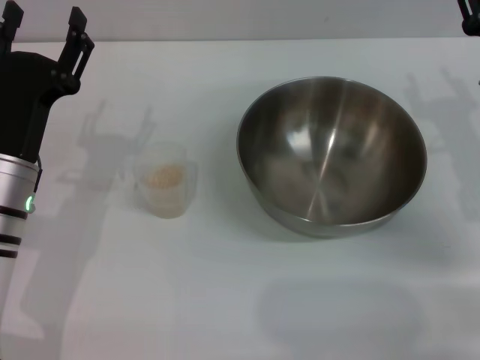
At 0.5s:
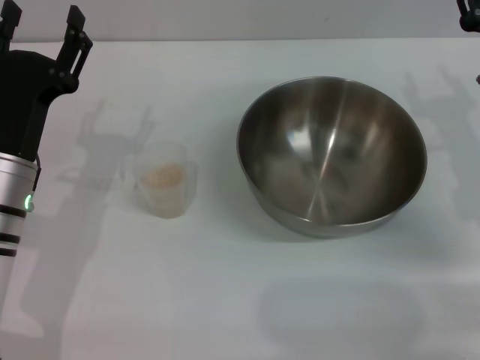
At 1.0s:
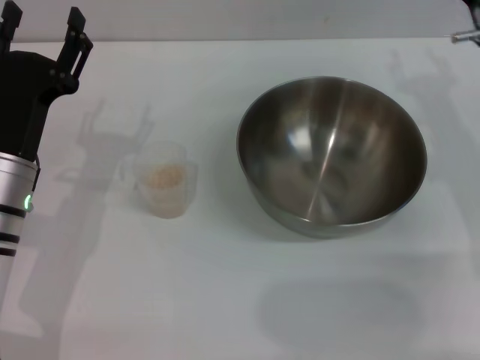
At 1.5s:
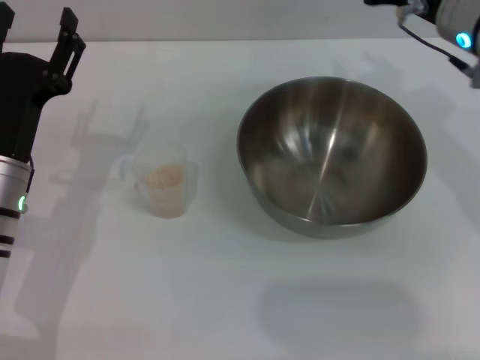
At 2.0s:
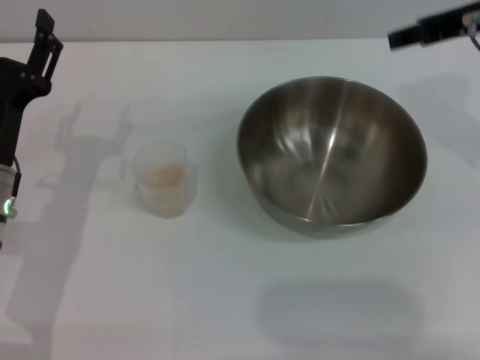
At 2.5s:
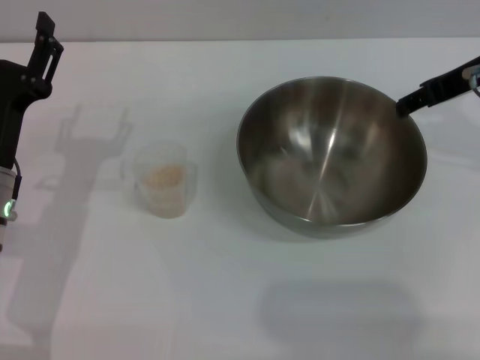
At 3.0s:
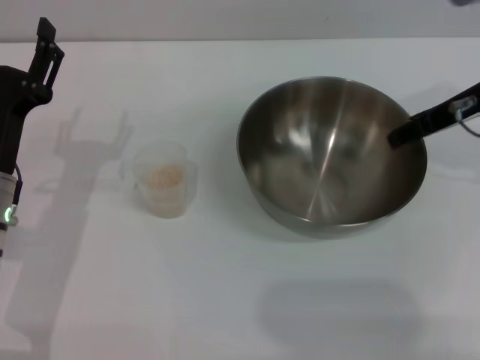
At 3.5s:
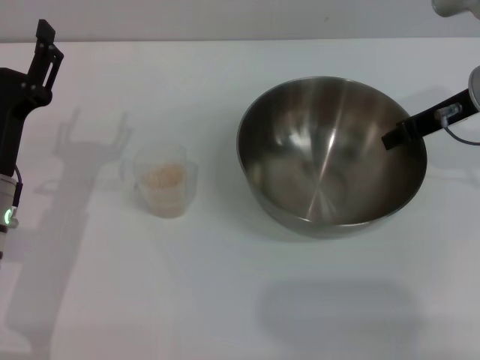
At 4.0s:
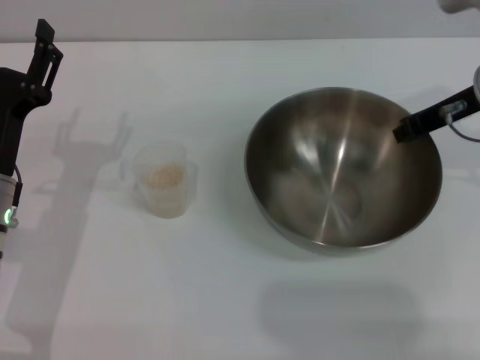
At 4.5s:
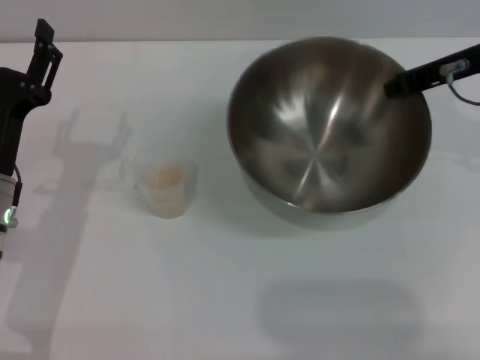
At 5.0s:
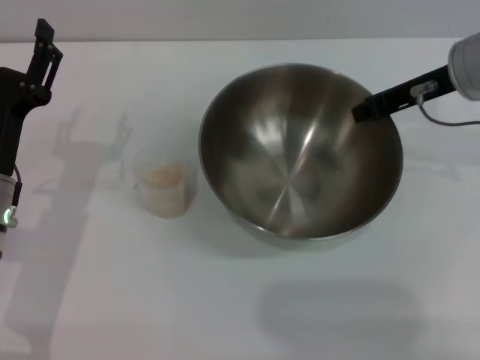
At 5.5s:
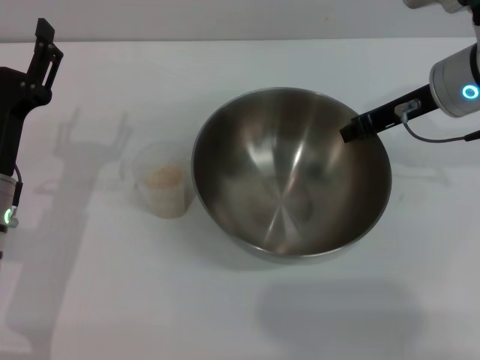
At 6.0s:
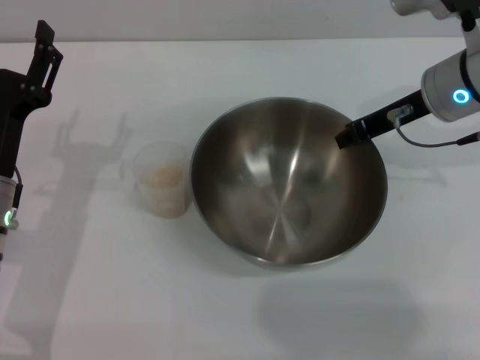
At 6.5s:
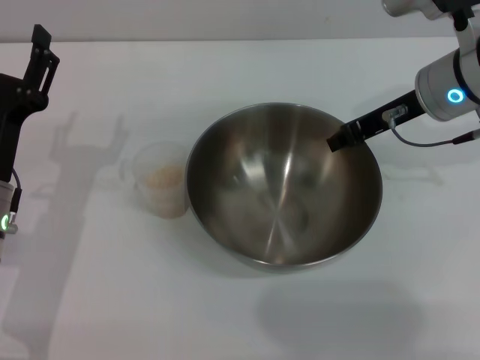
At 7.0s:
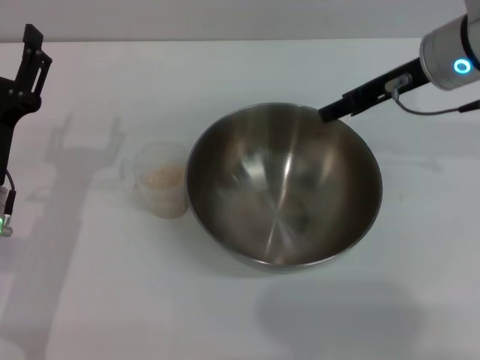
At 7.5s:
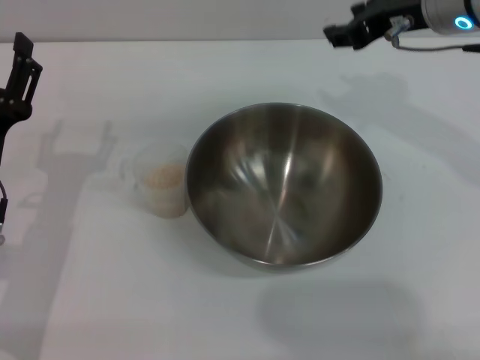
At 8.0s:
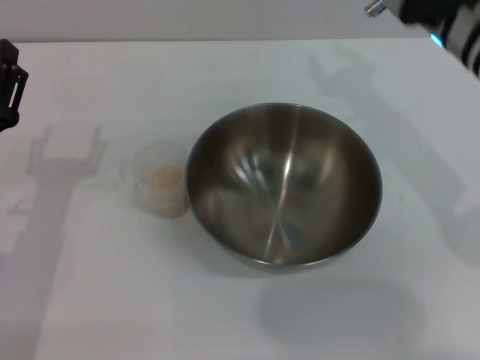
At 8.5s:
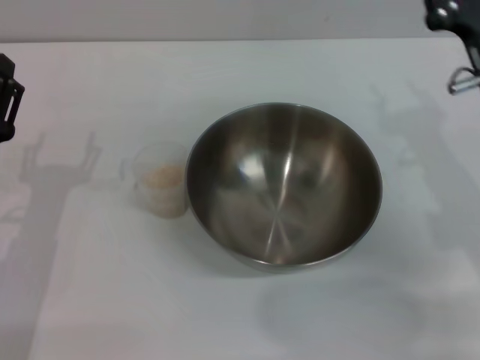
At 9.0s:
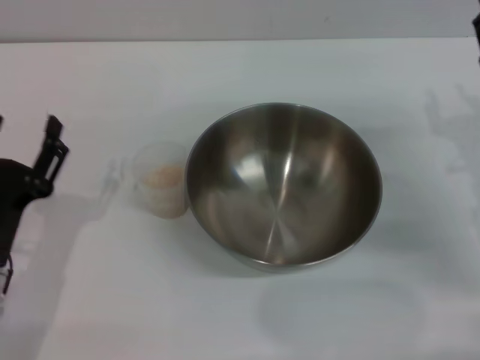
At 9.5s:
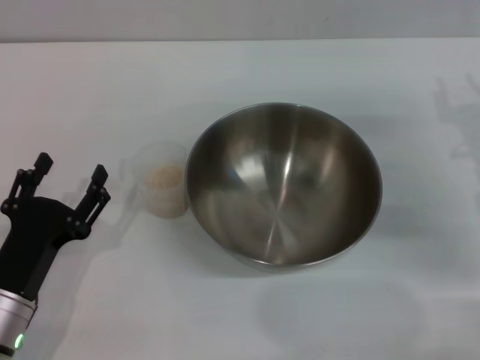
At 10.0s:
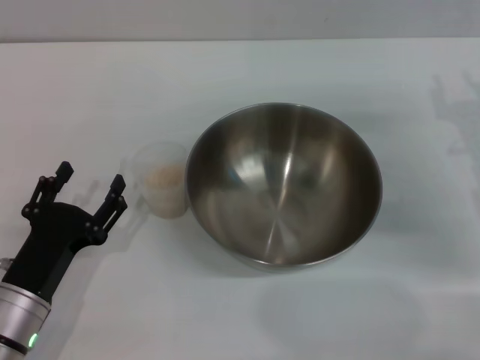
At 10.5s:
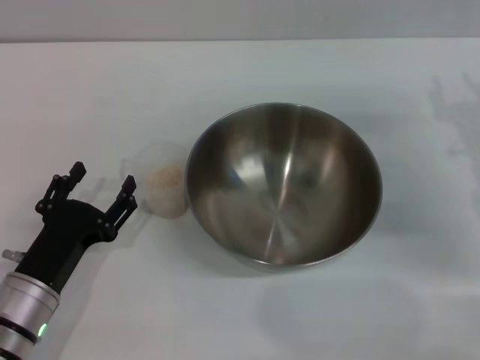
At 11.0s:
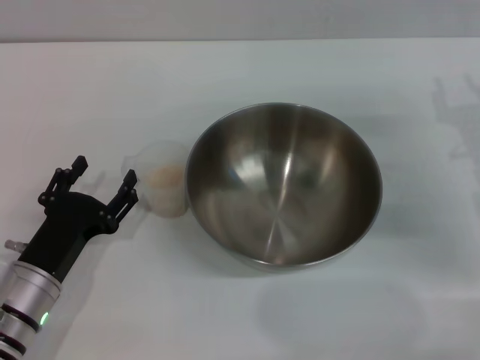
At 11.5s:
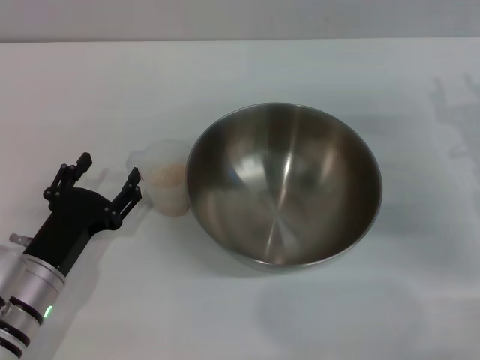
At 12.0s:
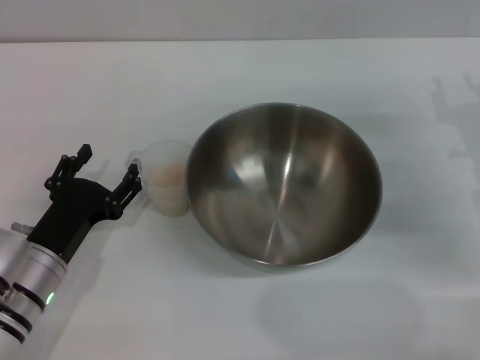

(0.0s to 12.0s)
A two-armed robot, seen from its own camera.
Task of the whole recording: Place the bowl in the middle of the table with one hand and pour the rice from the grain cup into it with the other hand.
Step, 0.0s - 4.0s: Pick up the bowl with the right gripper.
Step, 5.0s - 7.0s: Place the bowl in the center of view with the right gripper.
0.0s - 2.0s: The right gripper goes roughly 15 cm upward.
2.0s - 4.0s: The right gripper shifts about 10 cm downward, and closes.
6.0s - 8.0s: The right gripper travels upward by approximately 5 cm, and opens its fingers.
8.0s - 10.0s: The right gripper goes some 20 cm to the right and downward. The left gripper moves backward and downward, about 10 cm.
10.0s - 12.0s: The grippers make only small movements.

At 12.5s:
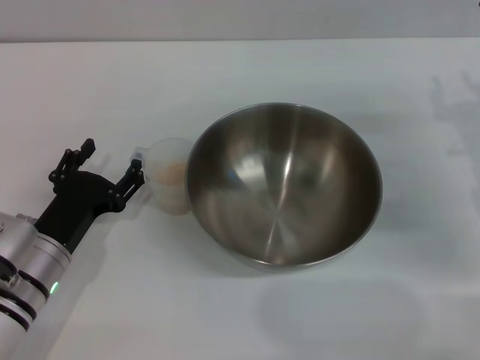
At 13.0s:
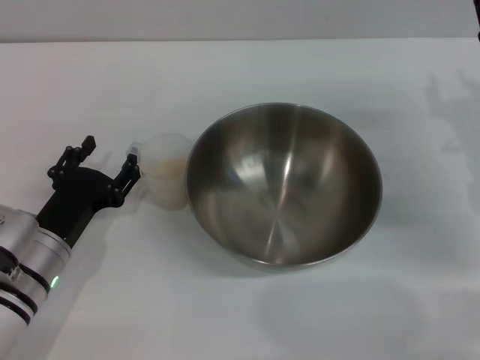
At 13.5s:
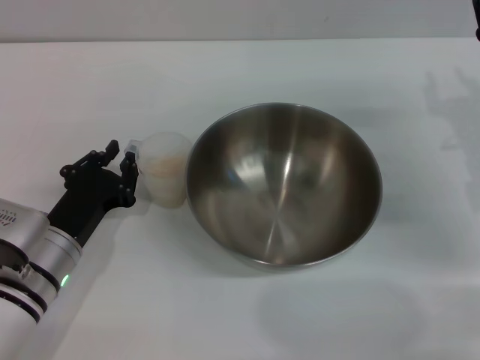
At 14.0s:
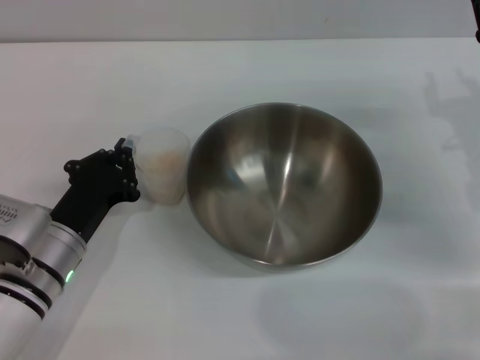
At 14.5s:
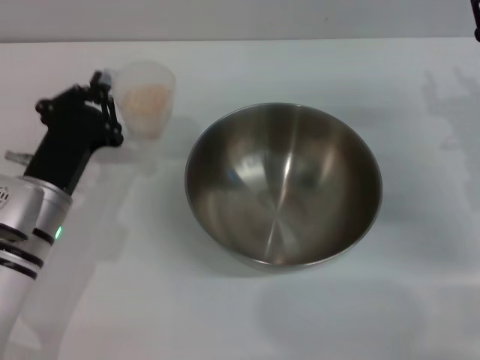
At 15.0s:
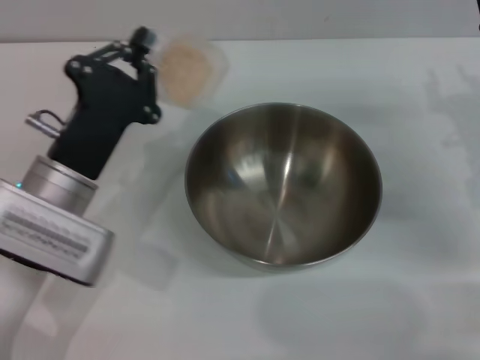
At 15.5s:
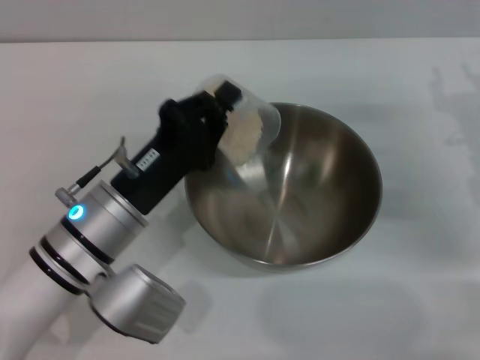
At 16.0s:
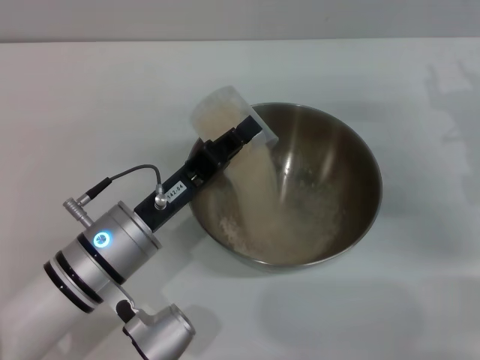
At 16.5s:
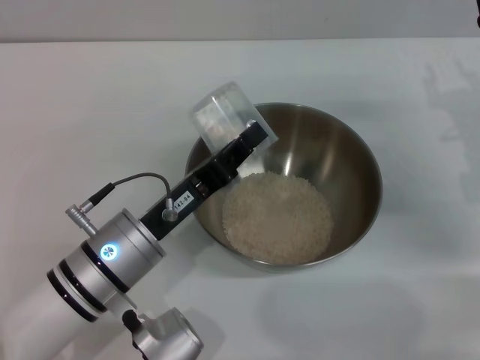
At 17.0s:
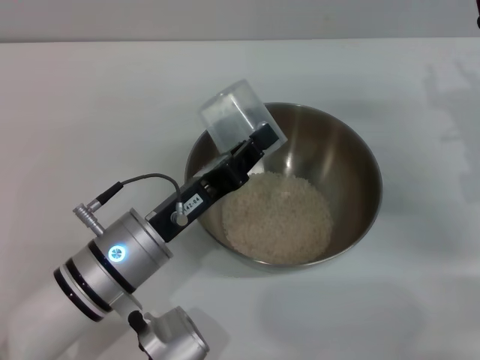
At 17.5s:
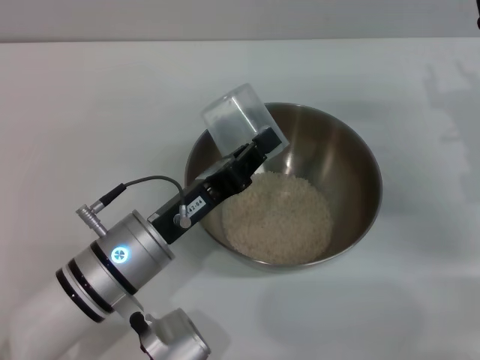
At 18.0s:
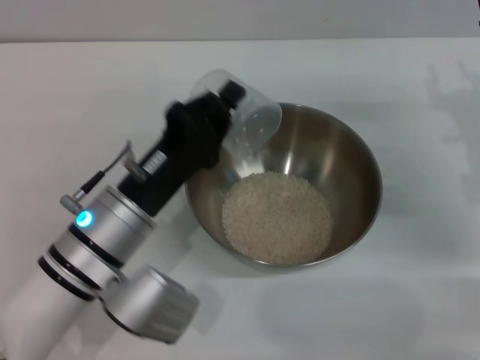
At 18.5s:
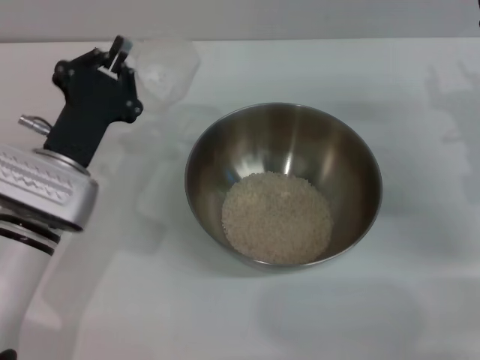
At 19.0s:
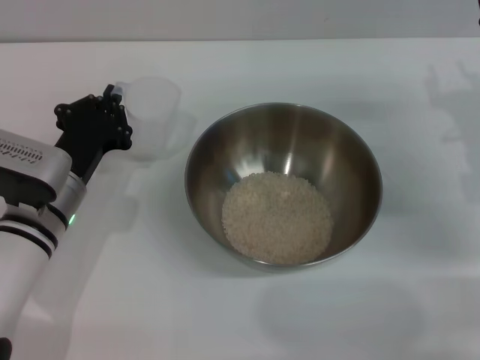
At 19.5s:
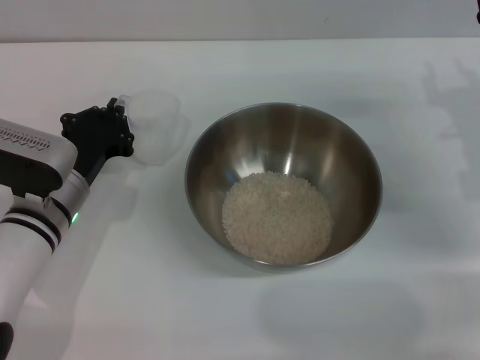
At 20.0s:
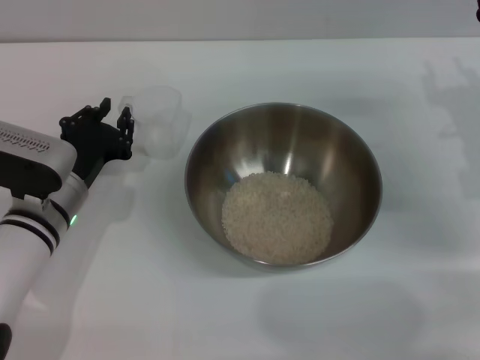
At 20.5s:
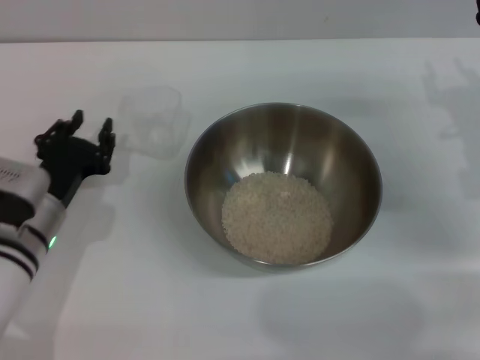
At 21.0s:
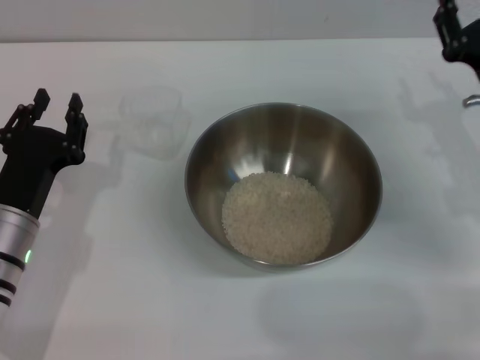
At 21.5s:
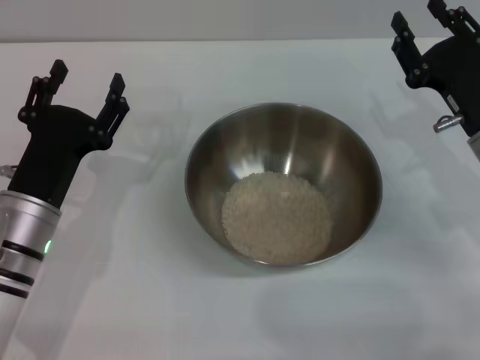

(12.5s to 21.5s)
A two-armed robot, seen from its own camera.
Task of the whole recording: Place the bowl in the middle of the table with one hand and pour the rice from the grain cup into it with the other hand.
Step, 12.5s - 14.5s: Pick up the cup with rice in it with the left gripper.
Step, 15.0s - 17.5s: Pour the rice from the cup into the bowl with the left gripper.
Step, 18.0s - 20.0s: Place the cup on the table with the left gripper.
12.5s - 14.5s: The left gripper changes place by some 5 cm, and closes its fingers.
14.5s - 17.0s: The left gripper is displaced to the right by some 10 cm.
17.0s - 19.5s: The left gripper travels to the left and forward by some 10 cm.
19.5s - 21.5s: The left gripper shifts roughly 5 cm backward, and opens its fingers.

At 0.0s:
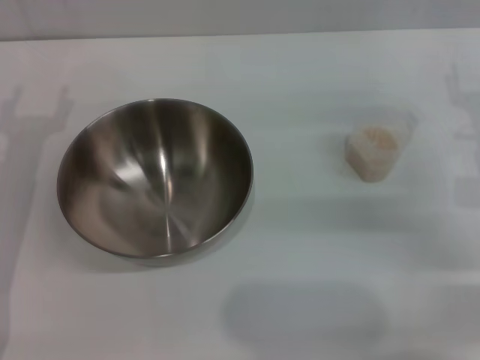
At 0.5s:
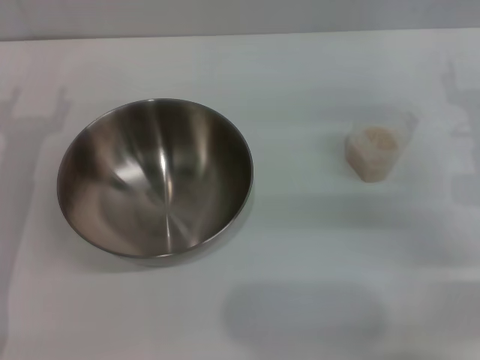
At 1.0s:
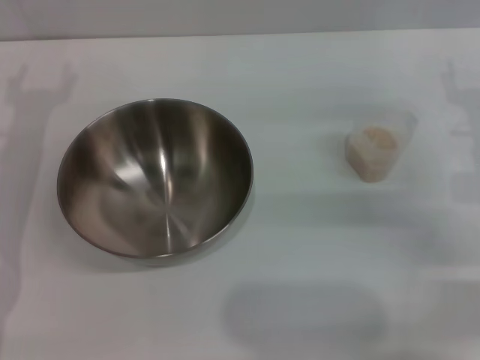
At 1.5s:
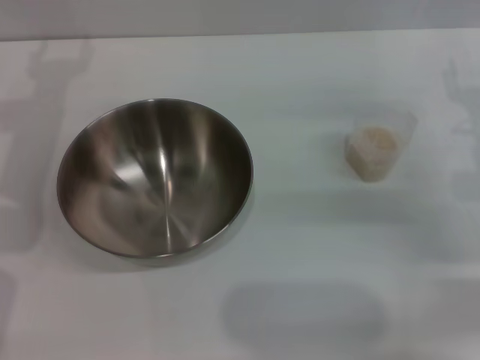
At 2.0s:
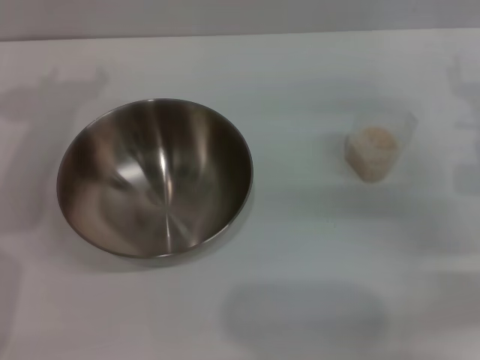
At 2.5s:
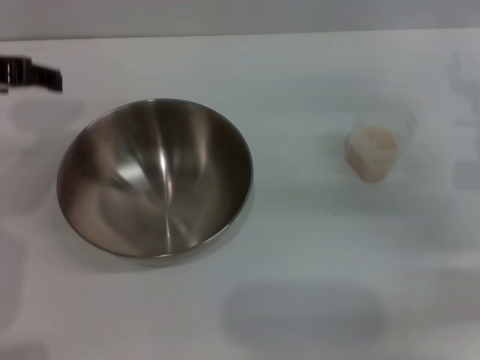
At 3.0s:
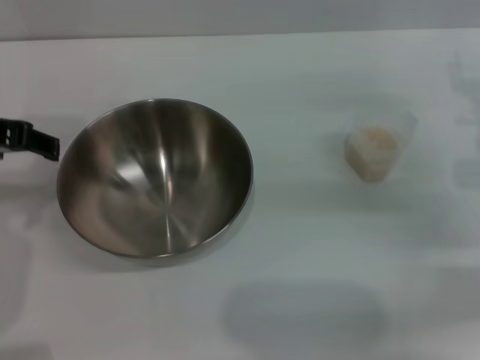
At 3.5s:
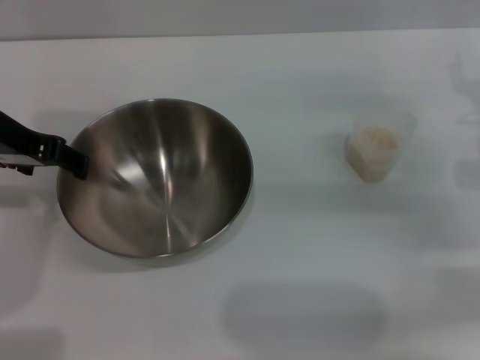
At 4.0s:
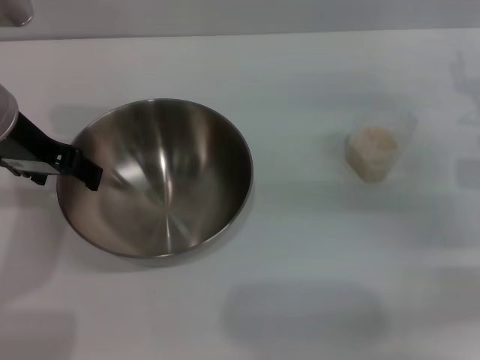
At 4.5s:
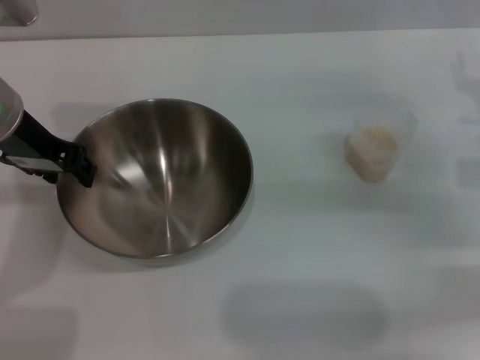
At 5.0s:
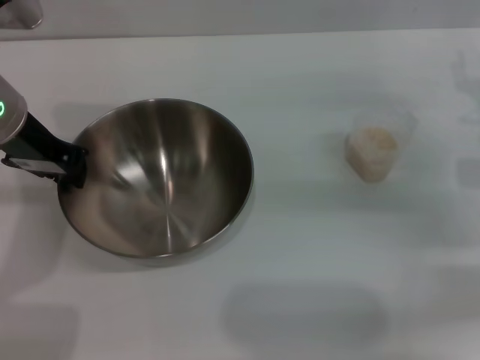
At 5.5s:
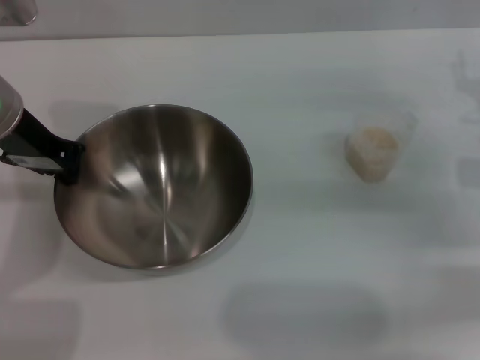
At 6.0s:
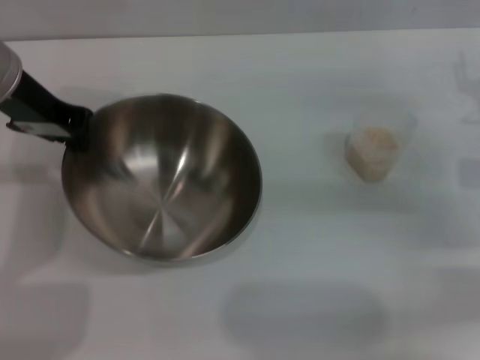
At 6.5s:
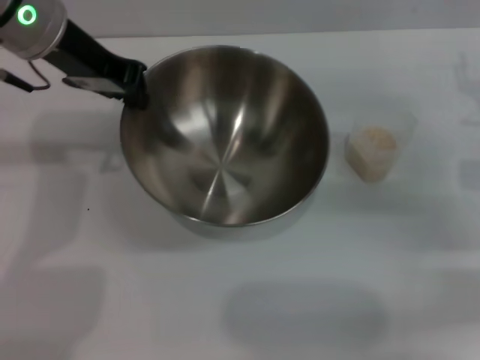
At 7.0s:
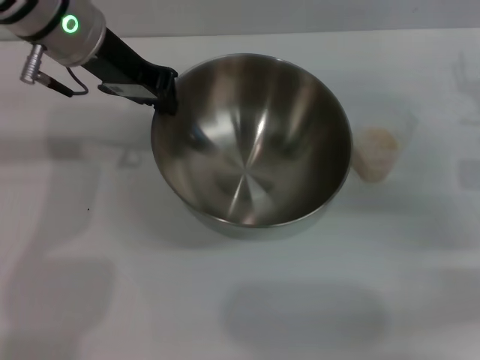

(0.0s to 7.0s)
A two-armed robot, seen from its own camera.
Task of the whole recording: Place the bowl in the middle of the table with one hand and pour the rice from the grain cup into it with the other hand.
Step, 0.0s - 6.0s: Pick up the bowl with the left gripper.
0.0s - 2.0s: The left gripper moves upward, about 15 cm.
2.0s - 3.5s: The left gripper shifts by some 5 cm.
3.5s - 5.0s: The left gripper closes its fingers.
5.0s - 7.0s: The left gripper moves to the right, some 5 cm.
